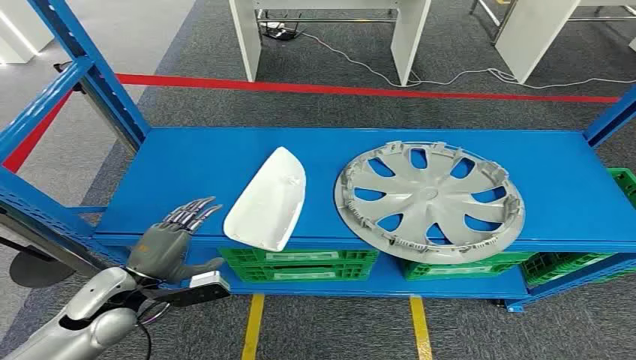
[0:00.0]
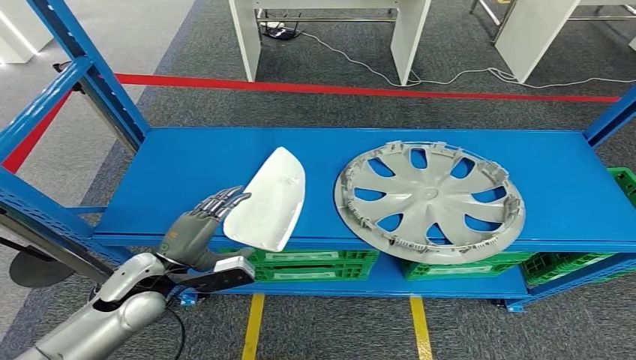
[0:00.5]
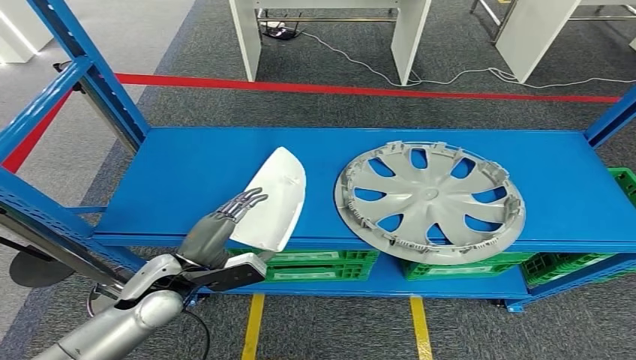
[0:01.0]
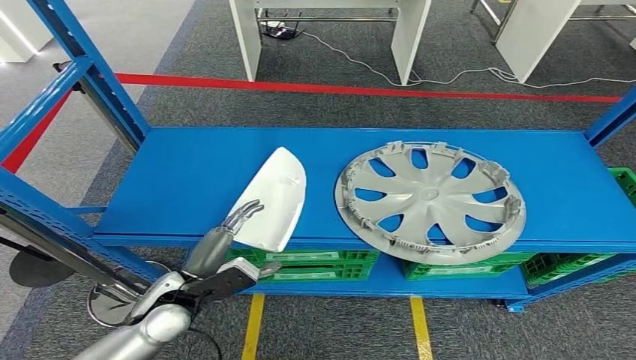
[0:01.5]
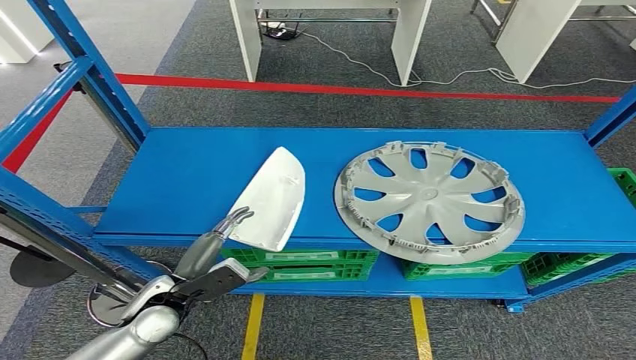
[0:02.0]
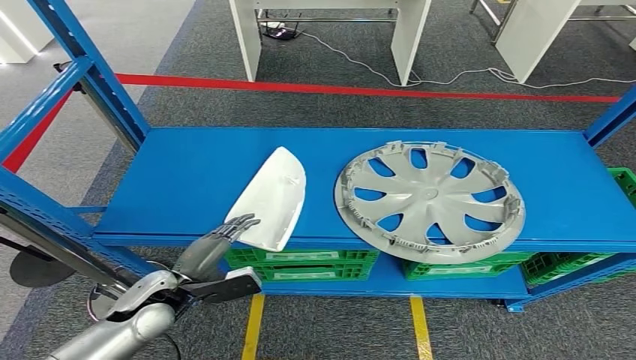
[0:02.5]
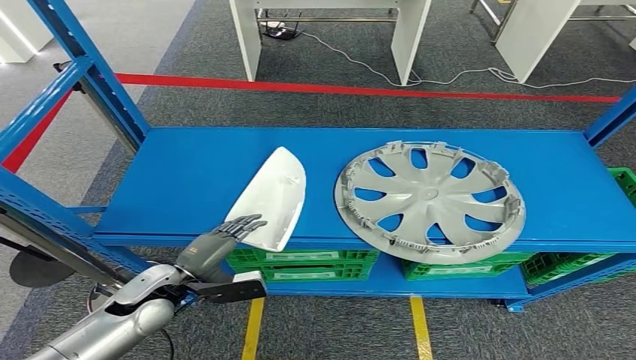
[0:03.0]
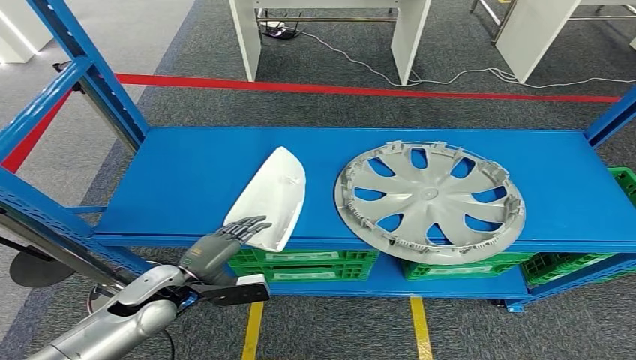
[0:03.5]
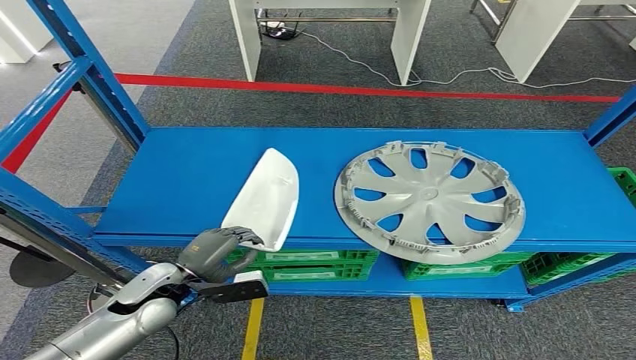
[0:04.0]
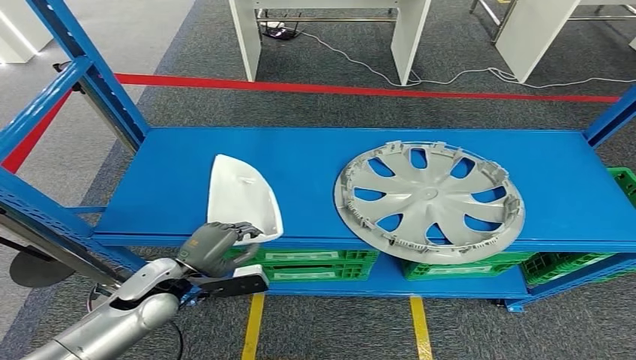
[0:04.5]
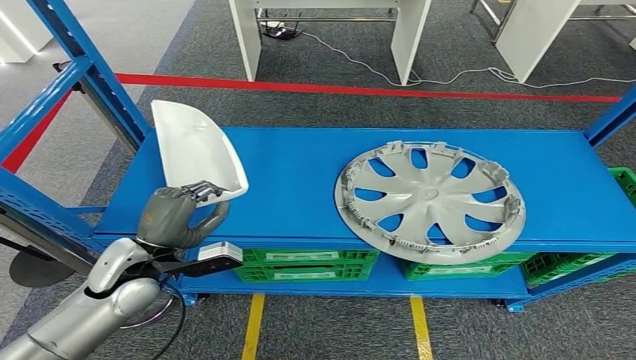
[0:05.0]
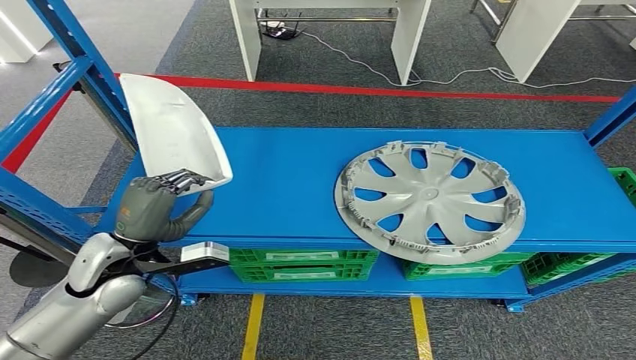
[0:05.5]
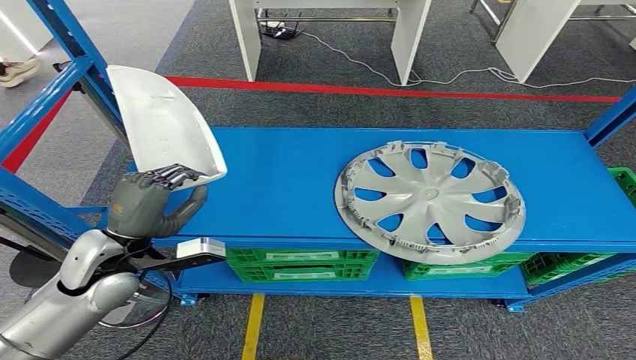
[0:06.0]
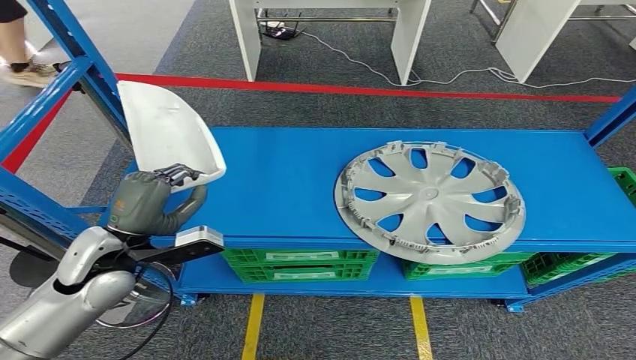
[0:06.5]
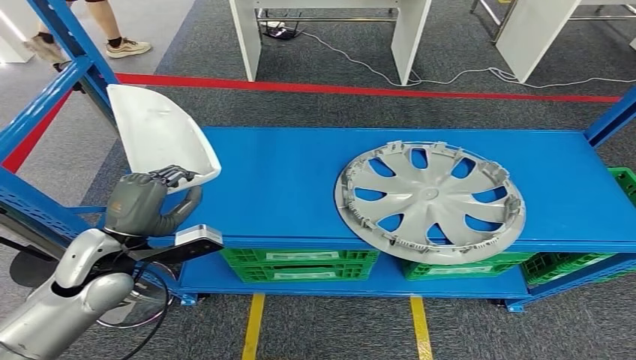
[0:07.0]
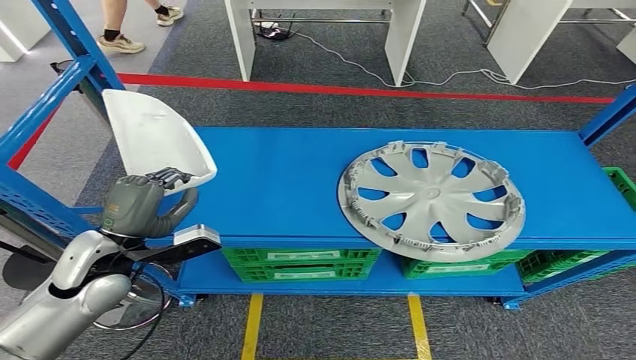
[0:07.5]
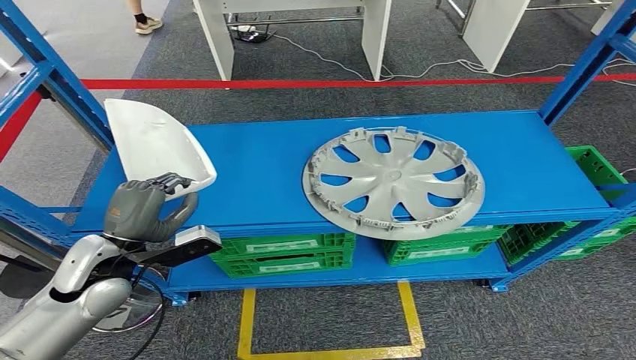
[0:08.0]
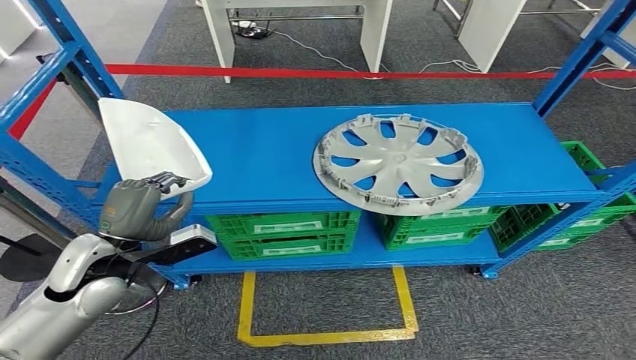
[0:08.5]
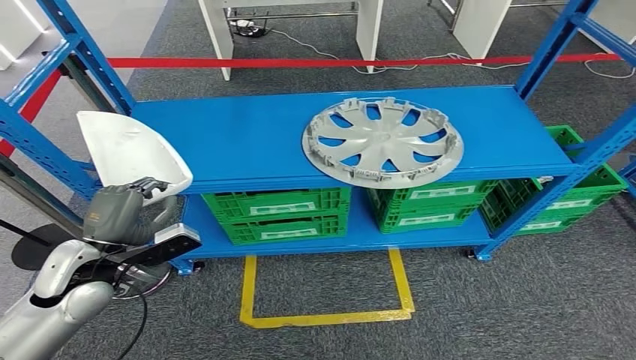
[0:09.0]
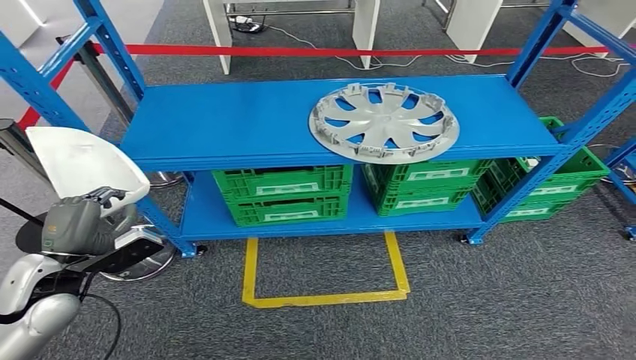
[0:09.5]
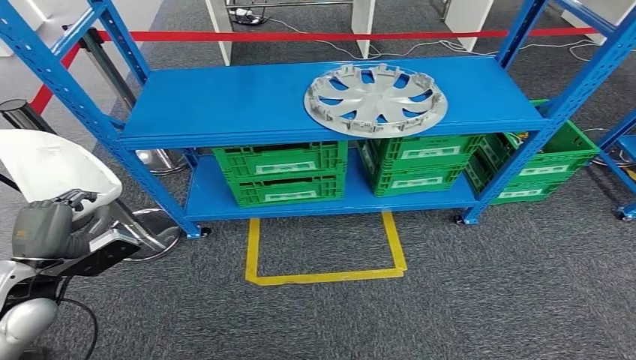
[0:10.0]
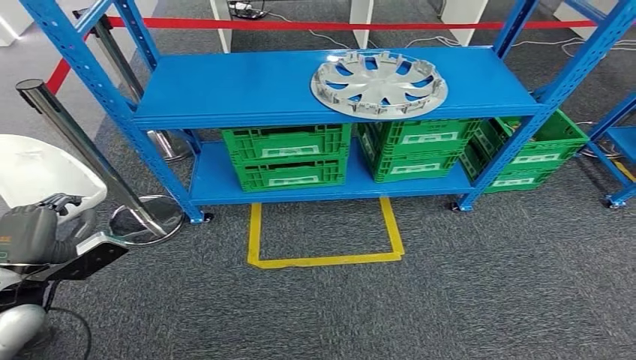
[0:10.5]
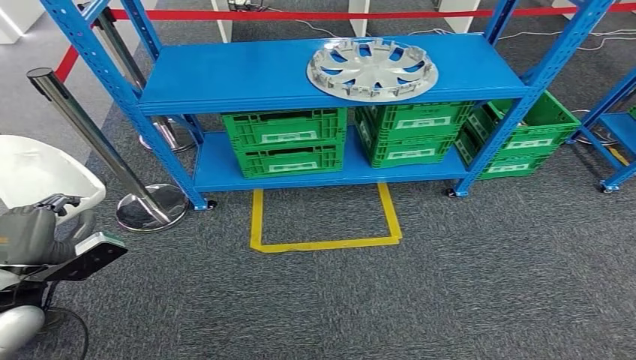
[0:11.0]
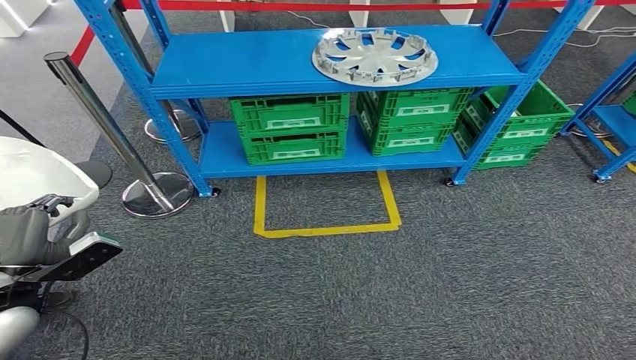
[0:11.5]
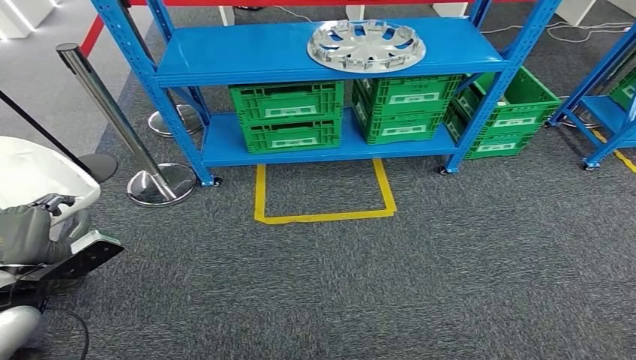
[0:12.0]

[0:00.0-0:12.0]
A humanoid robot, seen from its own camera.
Step, 0:00.0 to 0:06.5: Pick up the small component from the shelf.
0:04.0 to 0:06.0: The left hand heads upward, covering some 10 cm.

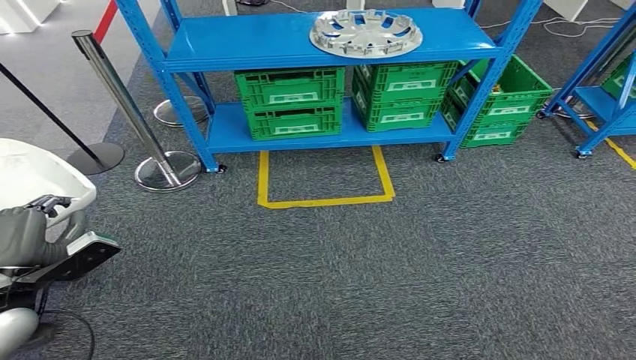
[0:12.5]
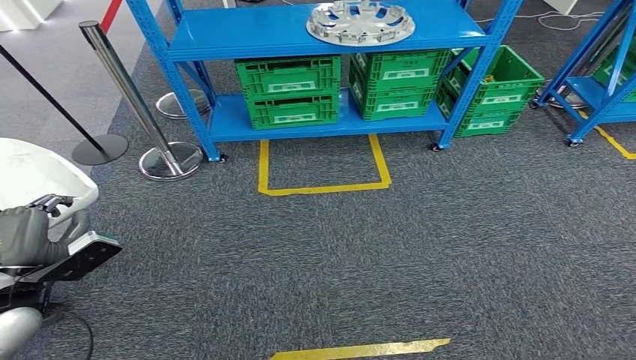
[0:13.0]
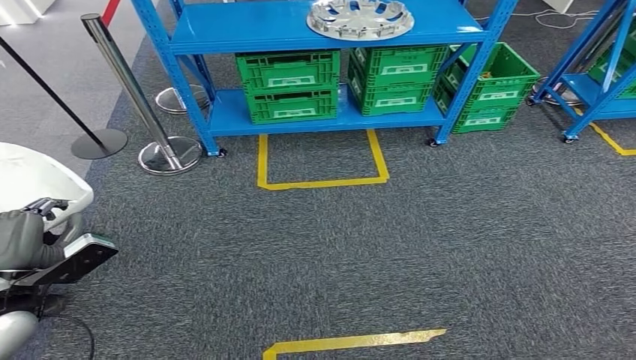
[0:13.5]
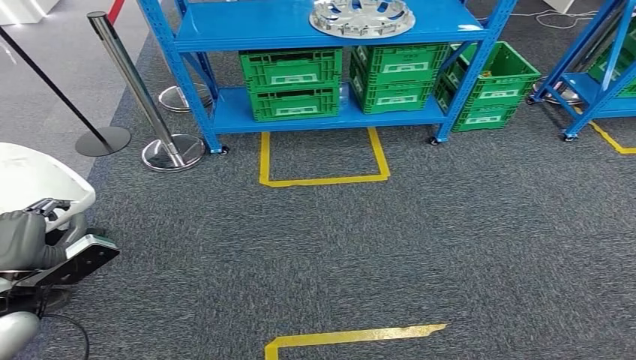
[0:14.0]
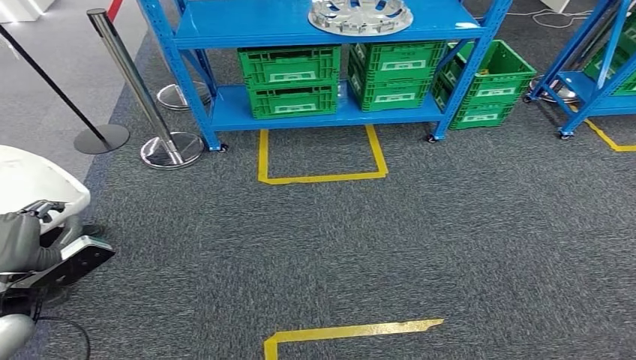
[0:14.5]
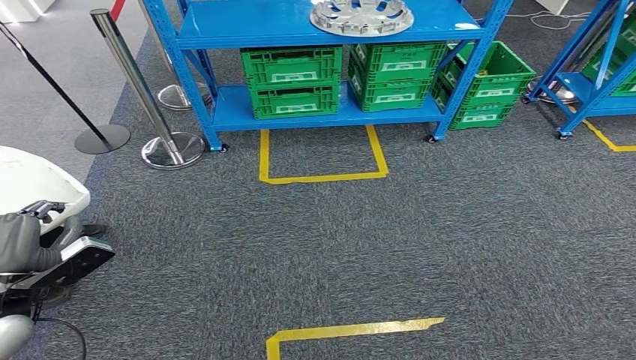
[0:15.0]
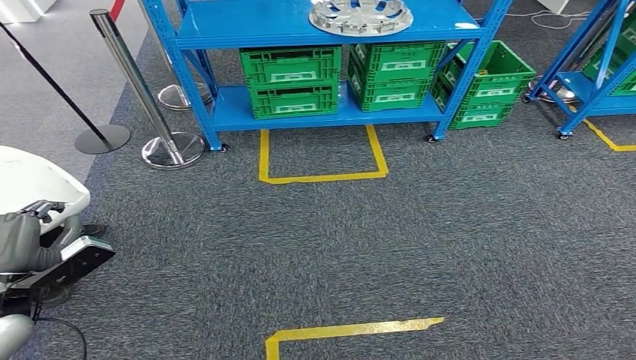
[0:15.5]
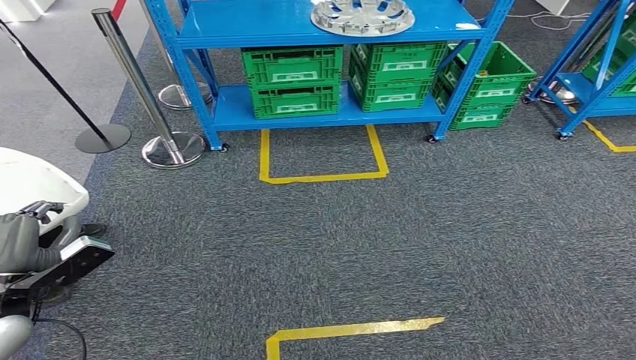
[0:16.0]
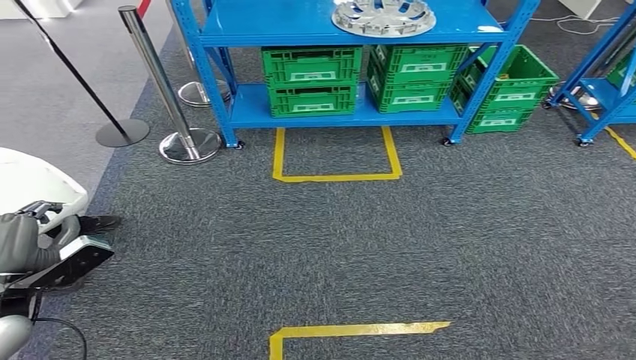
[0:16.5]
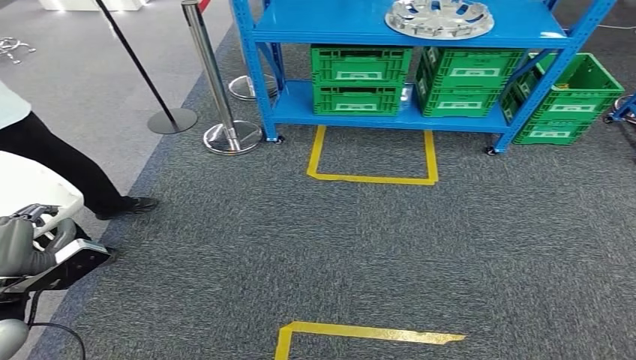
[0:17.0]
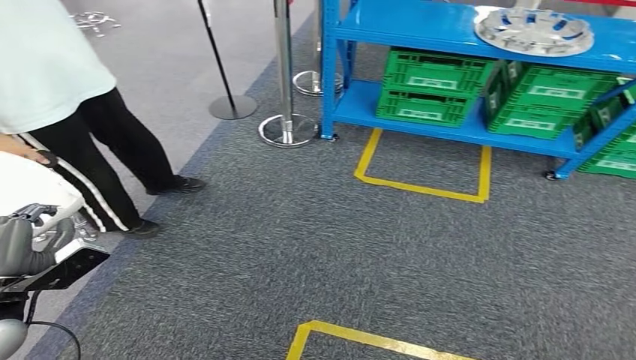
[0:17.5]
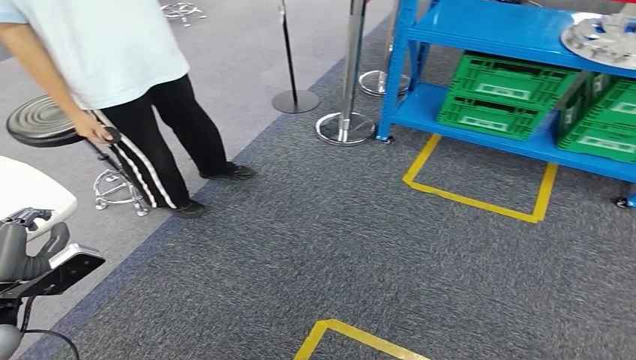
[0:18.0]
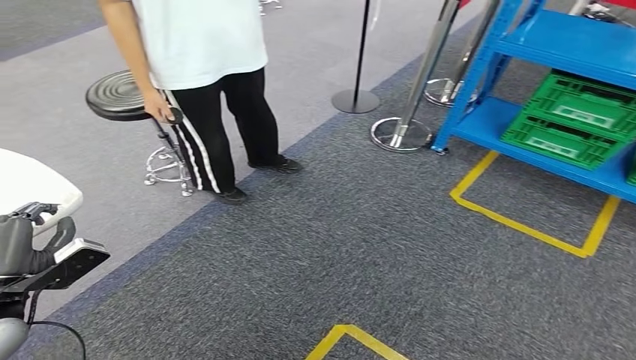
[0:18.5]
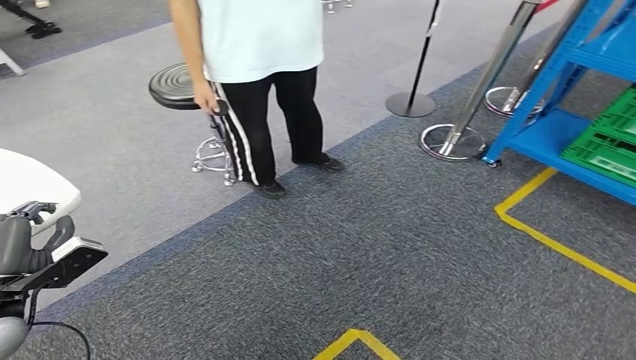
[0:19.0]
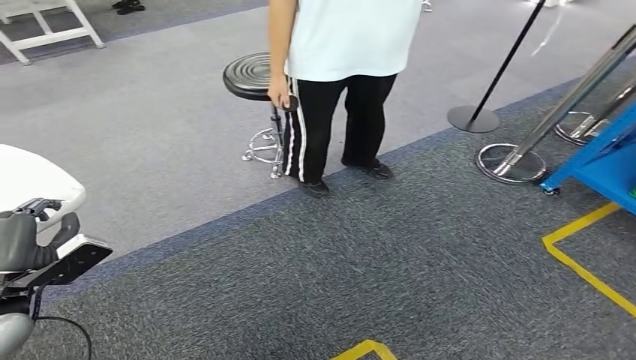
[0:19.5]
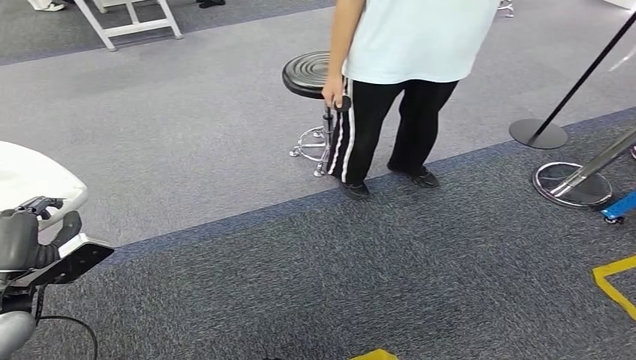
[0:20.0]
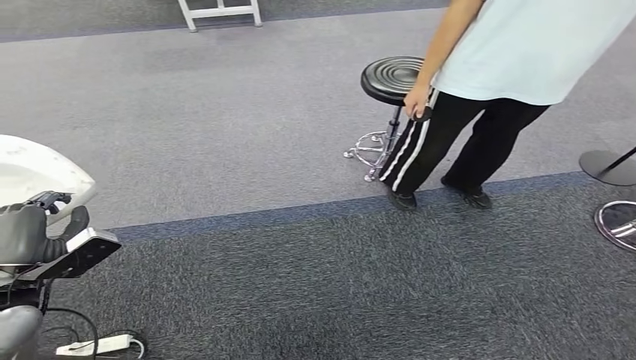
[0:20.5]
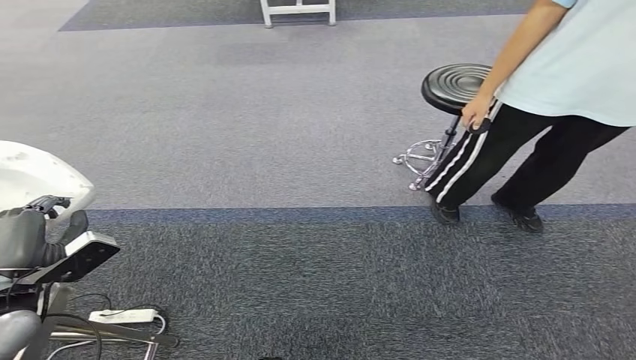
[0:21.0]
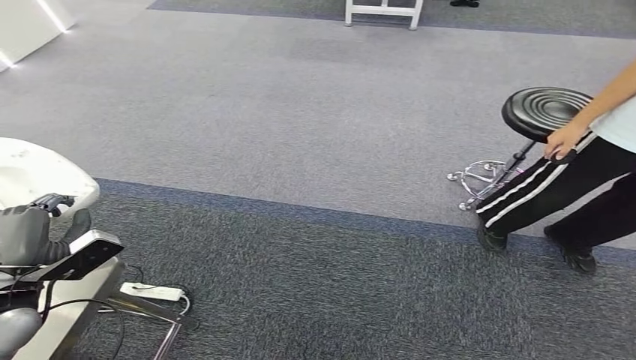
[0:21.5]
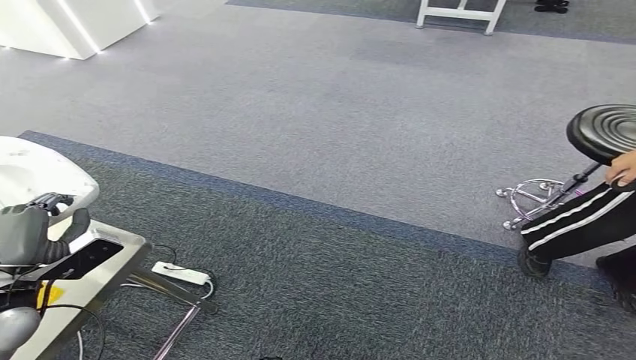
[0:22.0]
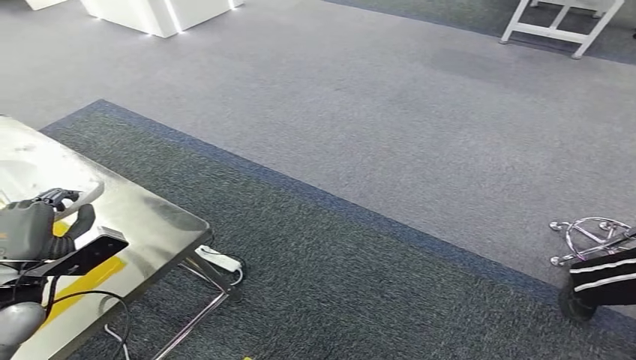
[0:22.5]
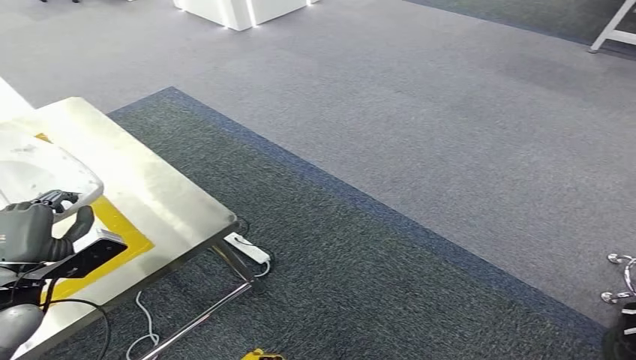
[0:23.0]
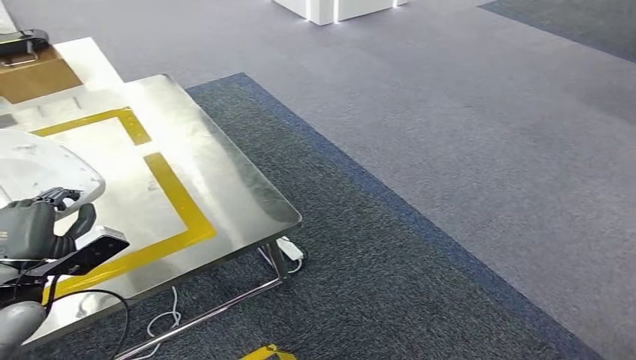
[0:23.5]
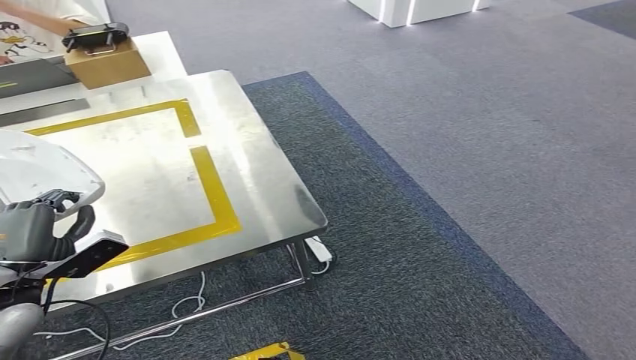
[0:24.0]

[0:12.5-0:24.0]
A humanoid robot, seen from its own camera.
Step, 0:12.5 to 0:22.0: Move the small component to the workbench.
